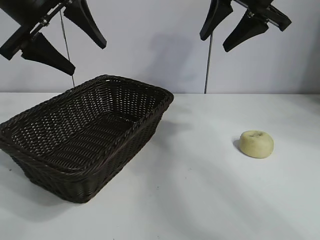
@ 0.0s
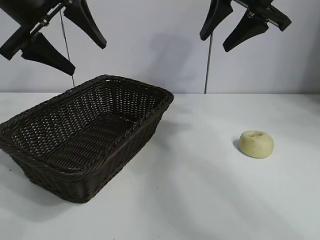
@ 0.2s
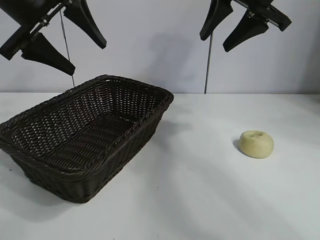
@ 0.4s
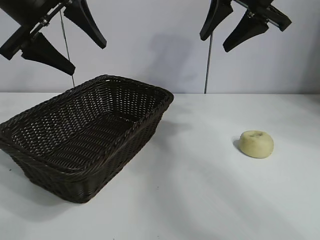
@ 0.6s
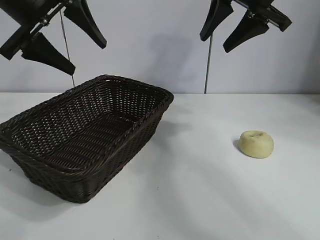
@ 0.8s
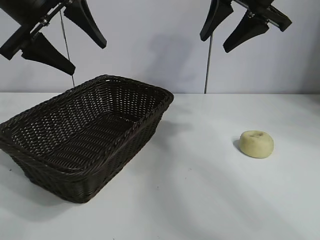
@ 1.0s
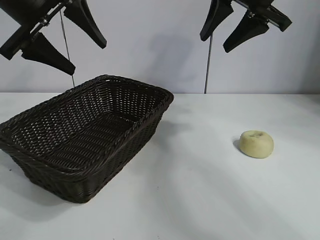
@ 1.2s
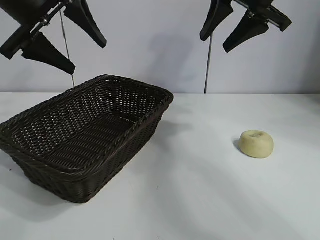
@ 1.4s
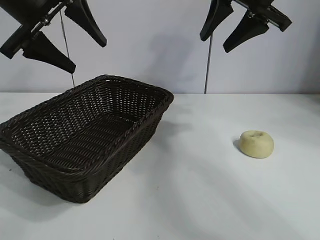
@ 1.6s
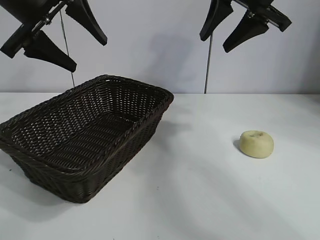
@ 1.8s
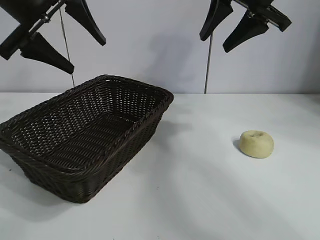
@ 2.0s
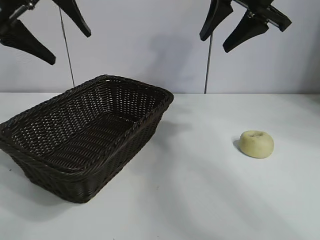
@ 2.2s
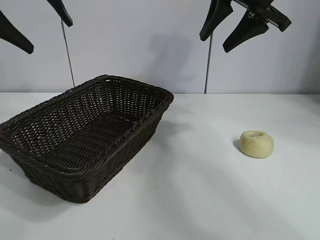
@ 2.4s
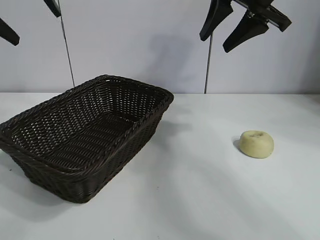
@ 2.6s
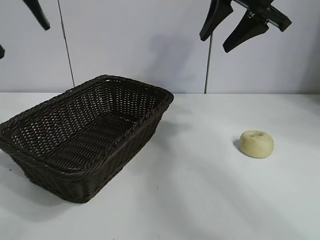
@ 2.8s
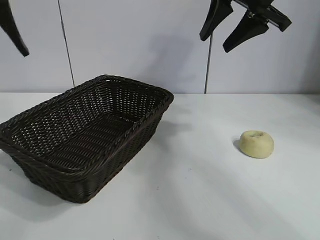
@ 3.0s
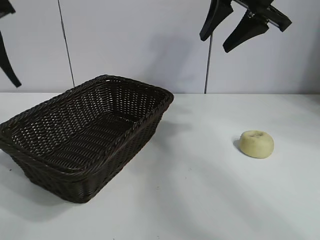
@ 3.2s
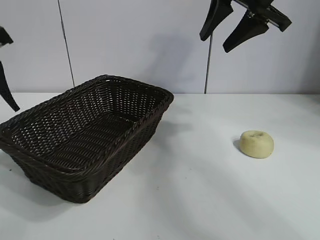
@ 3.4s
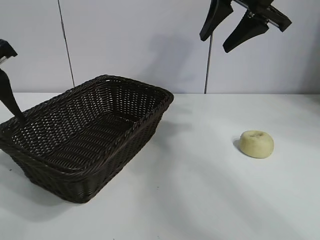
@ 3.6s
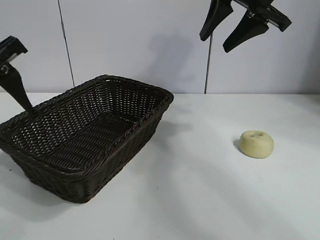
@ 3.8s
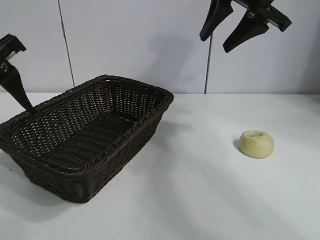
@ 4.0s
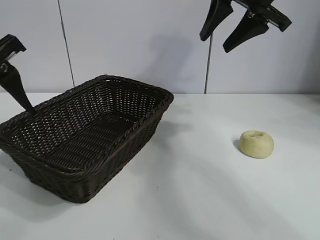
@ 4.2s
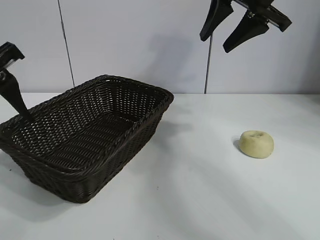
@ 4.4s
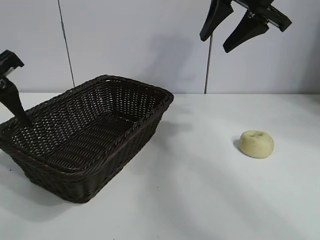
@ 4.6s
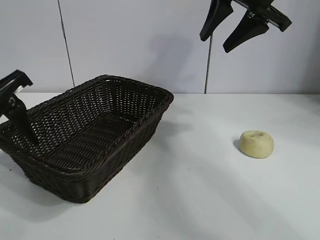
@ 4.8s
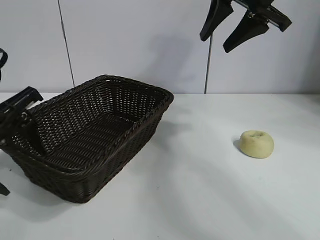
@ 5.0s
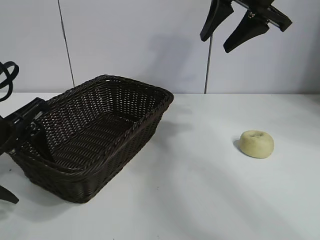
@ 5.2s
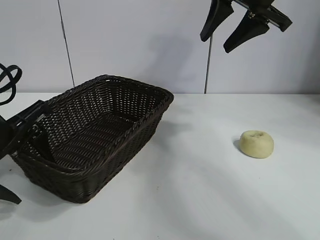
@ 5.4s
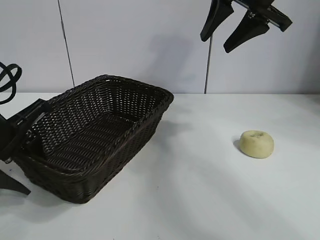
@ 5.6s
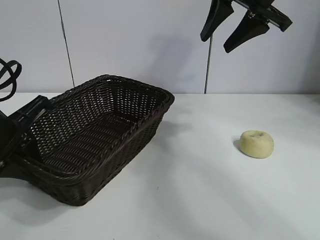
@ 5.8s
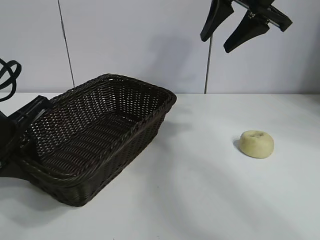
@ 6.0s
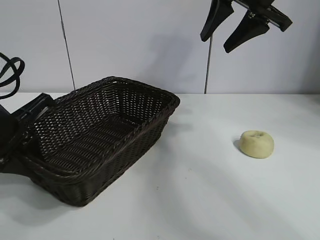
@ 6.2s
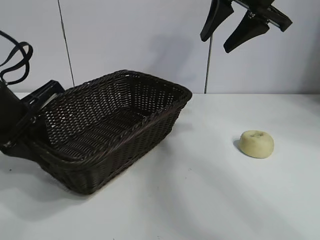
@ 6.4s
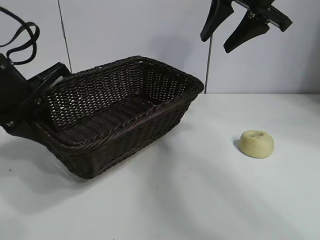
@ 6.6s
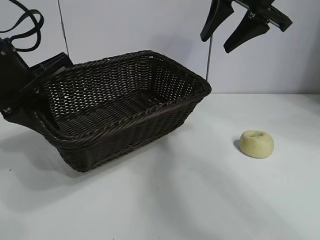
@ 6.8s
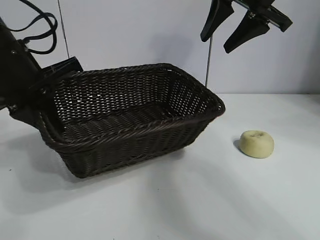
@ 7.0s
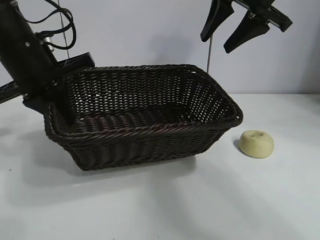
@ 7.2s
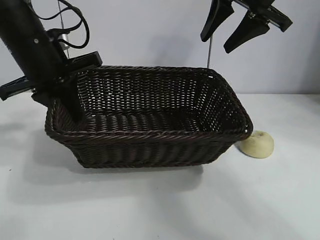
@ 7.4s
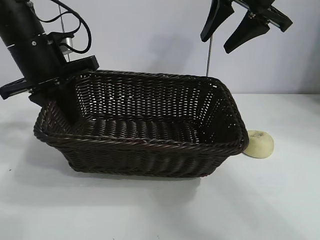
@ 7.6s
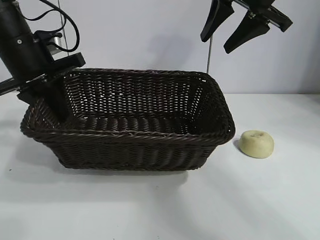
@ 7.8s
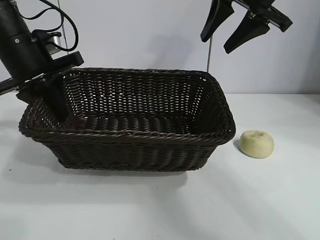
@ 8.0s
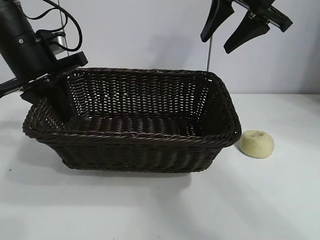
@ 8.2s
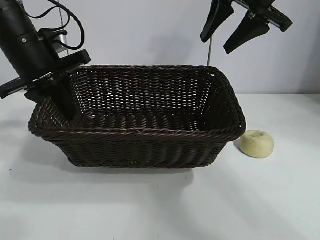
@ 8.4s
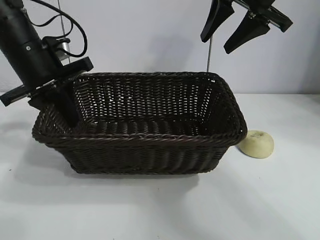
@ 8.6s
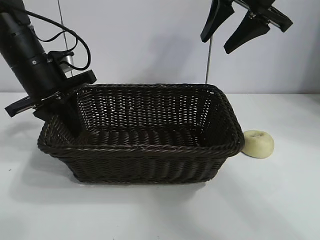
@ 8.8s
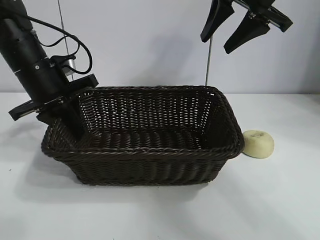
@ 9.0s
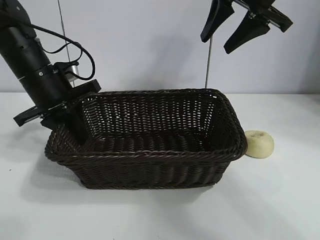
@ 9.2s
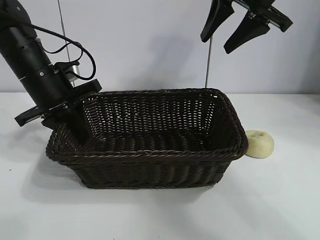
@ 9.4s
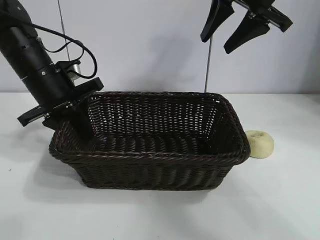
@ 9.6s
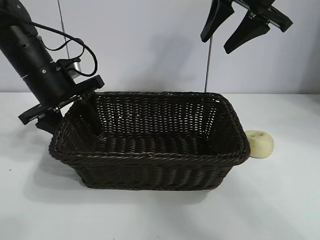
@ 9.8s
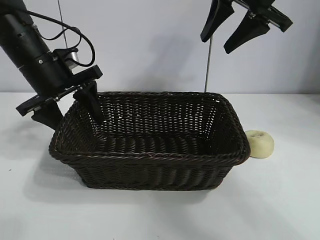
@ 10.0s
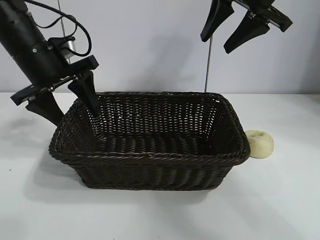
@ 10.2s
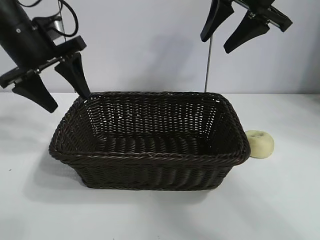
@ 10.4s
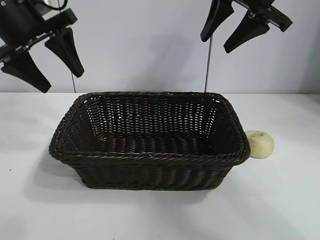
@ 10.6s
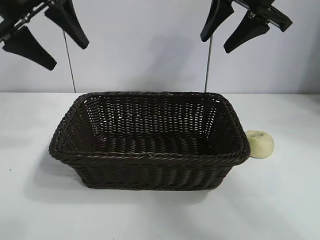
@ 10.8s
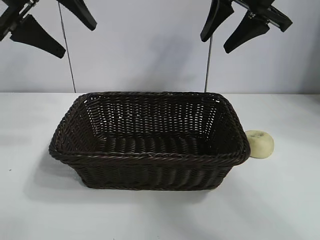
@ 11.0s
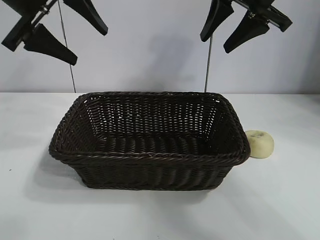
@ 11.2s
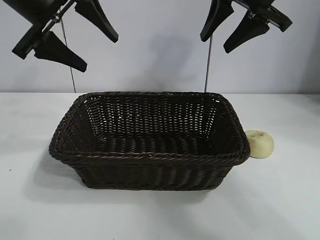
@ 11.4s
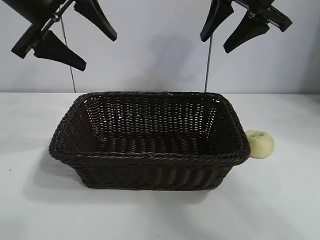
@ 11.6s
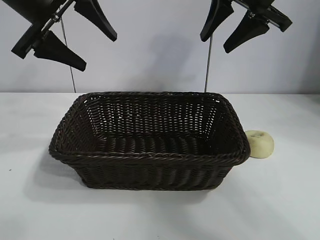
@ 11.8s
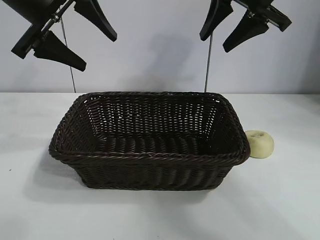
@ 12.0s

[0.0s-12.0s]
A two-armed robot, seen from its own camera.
Task of the whole recording: pick up the egg yolk pastry and put it into the basket.
Step, 1.4s to 5.8s: Grasp the basket with left gripper.
Step, 6.0s to 9.8s: Place the basket in the center of view with left gripper.

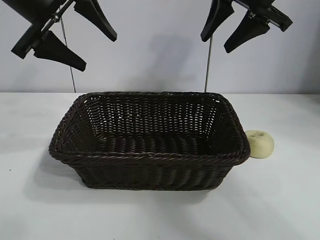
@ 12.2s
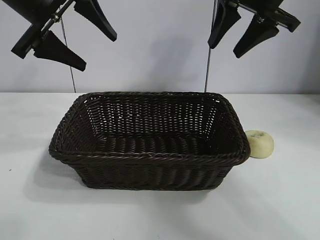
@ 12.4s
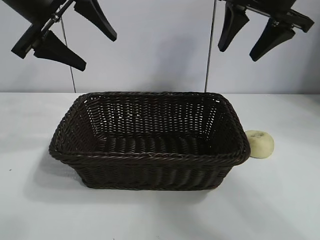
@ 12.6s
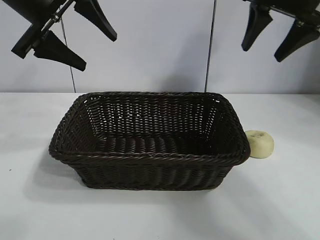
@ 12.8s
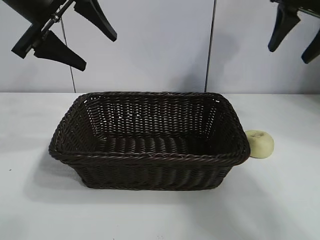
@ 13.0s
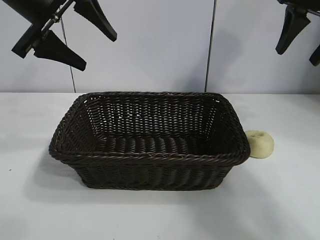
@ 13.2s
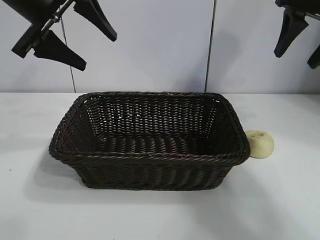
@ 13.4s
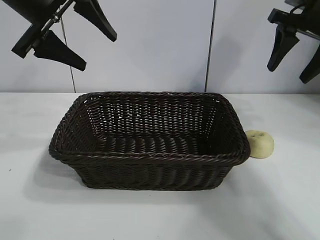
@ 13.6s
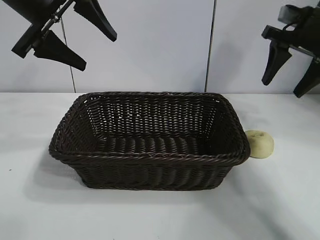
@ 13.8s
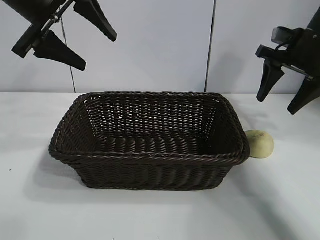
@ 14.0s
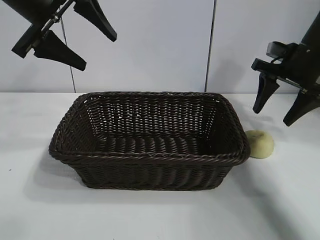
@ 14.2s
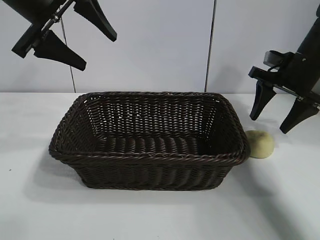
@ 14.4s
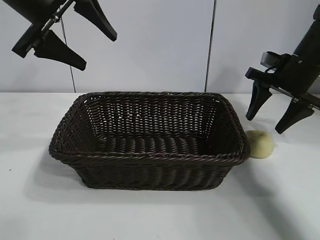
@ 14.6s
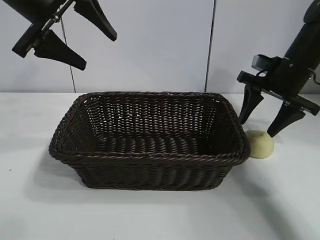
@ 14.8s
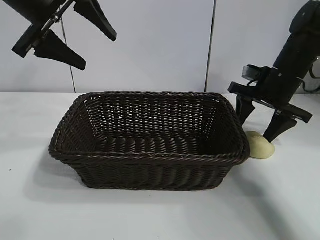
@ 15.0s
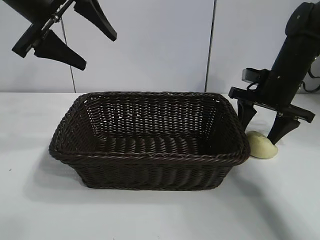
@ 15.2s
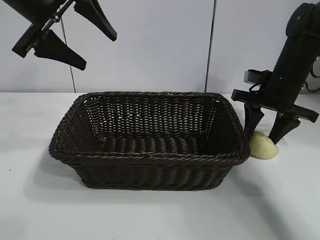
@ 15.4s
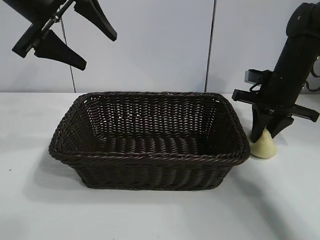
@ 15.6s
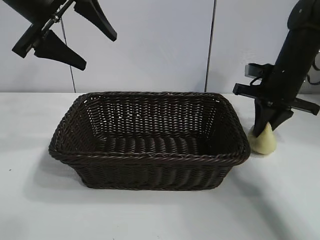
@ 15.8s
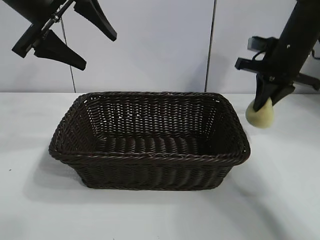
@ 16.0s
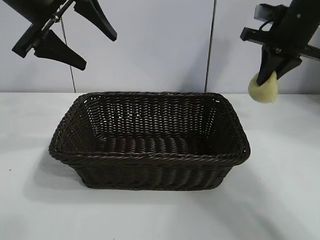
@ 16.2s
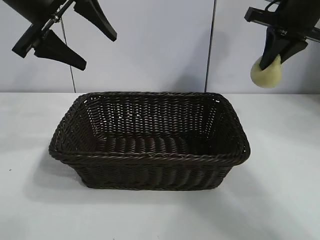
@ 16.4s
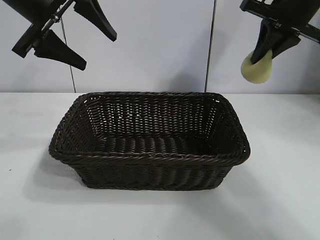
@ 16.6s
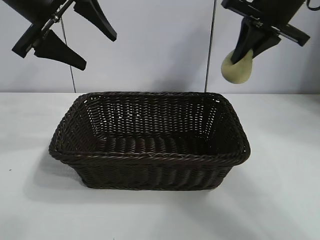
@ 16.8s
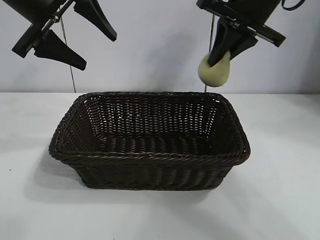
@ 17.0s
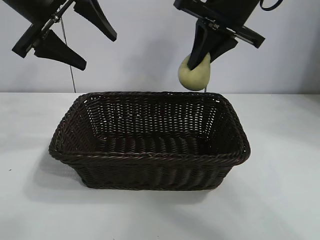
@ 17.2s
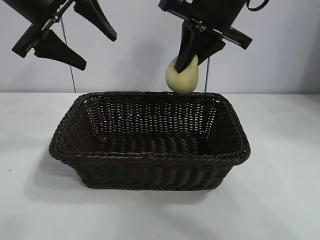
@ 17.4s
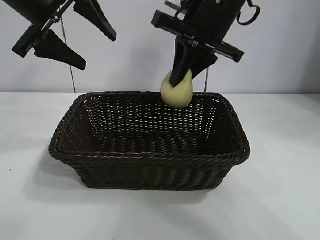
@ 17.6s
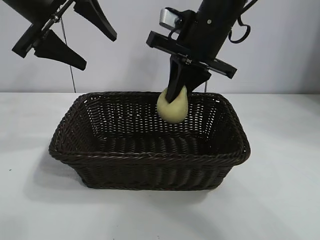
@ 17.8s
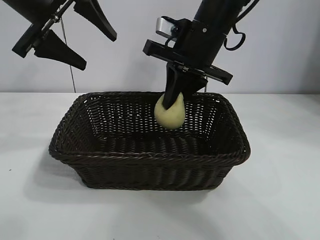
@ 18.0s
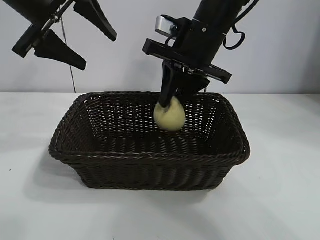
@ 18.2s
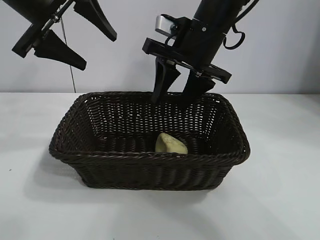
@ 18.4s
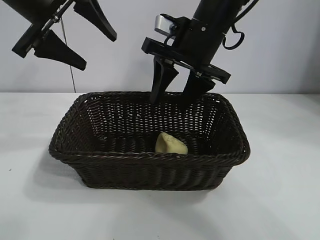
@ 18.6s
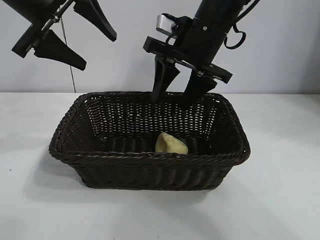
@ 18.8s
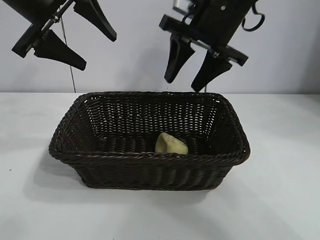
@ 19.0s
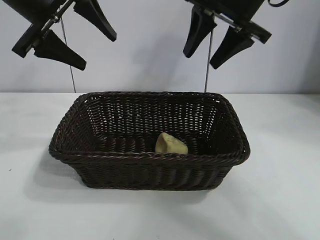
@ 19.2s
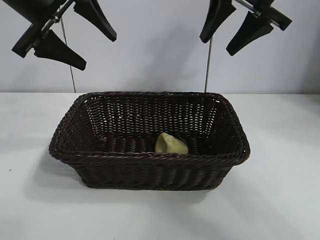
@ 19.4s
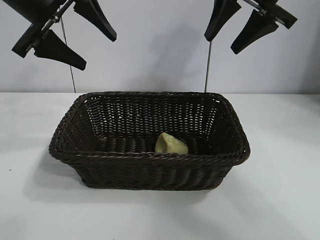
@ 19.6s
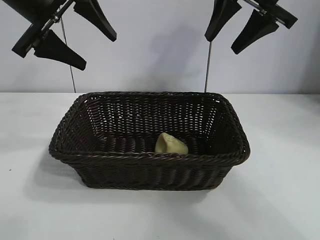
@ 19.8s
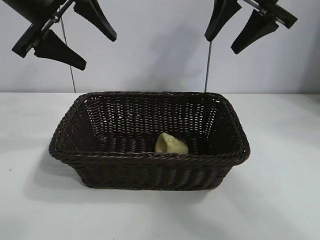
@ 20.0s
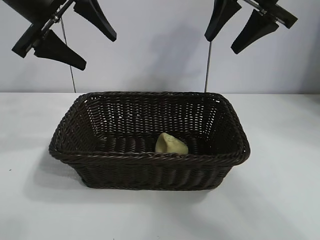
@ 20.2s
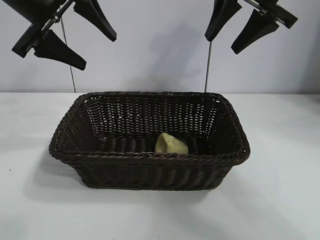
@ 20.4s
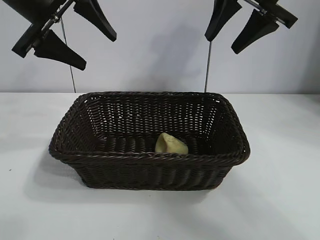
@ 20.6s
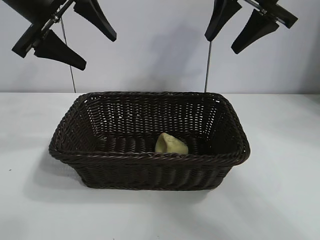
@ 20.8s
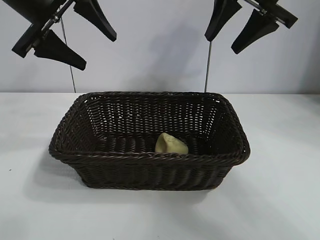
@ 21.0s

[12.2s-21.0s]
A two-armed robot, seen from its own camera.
Task of the whole recording: pick up the egg yolk pastry and put it into the basket.
Step, 12.2s to 15.6s: Grasp egg yolk pastry with right gripper.
Step, 15.8s to 18.4s: Place the egg yolk pastry in the basket with right gripper.
